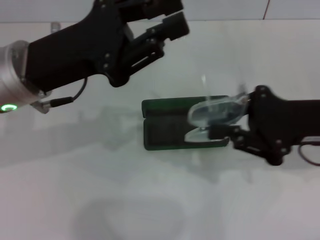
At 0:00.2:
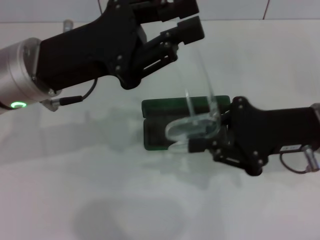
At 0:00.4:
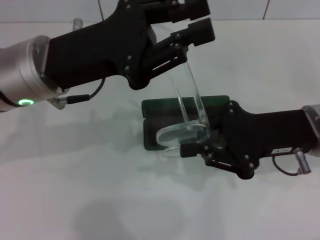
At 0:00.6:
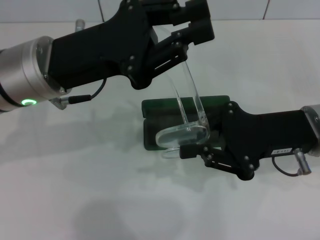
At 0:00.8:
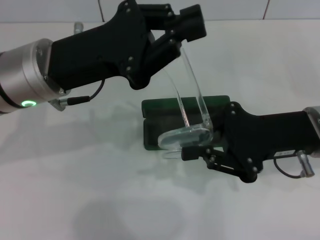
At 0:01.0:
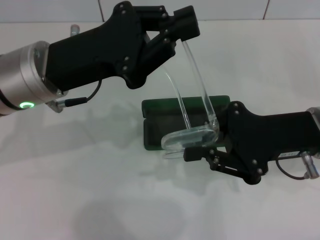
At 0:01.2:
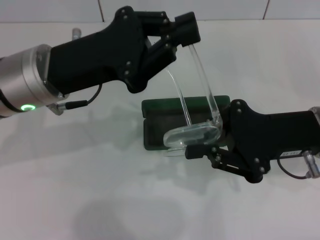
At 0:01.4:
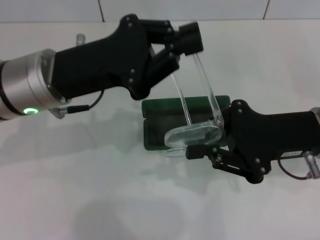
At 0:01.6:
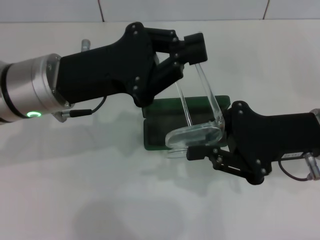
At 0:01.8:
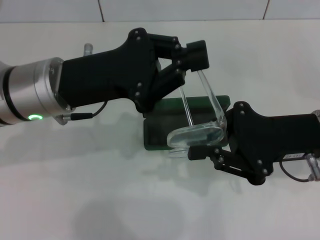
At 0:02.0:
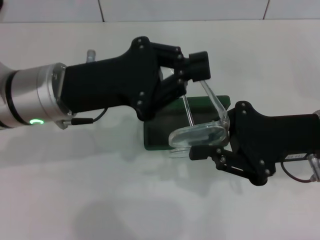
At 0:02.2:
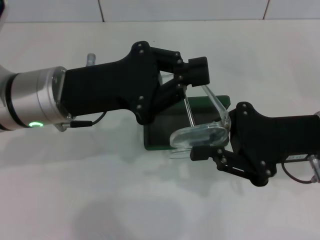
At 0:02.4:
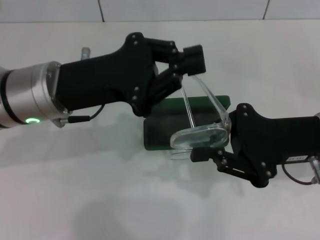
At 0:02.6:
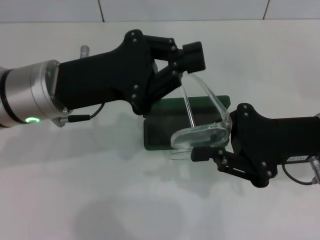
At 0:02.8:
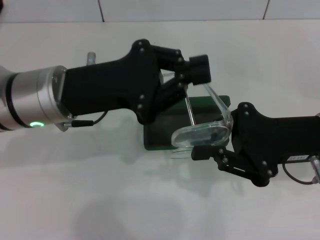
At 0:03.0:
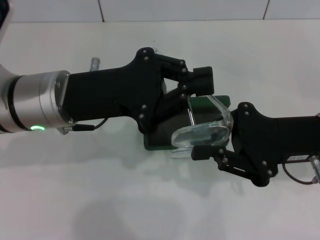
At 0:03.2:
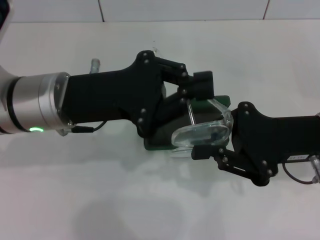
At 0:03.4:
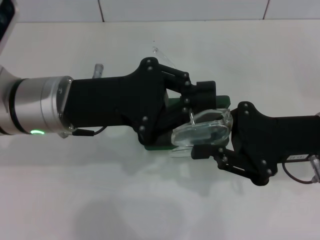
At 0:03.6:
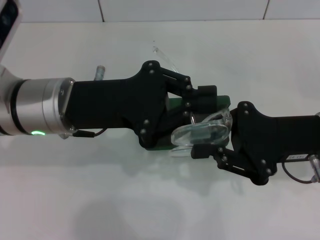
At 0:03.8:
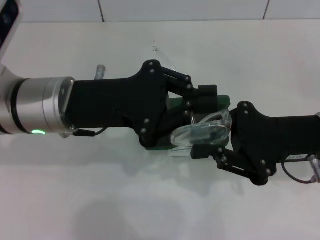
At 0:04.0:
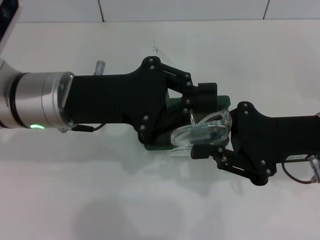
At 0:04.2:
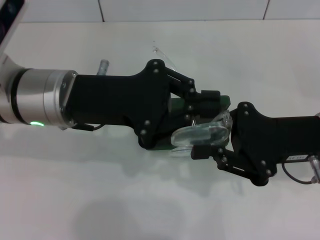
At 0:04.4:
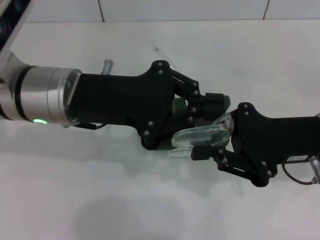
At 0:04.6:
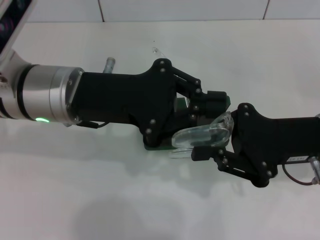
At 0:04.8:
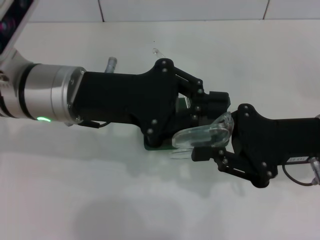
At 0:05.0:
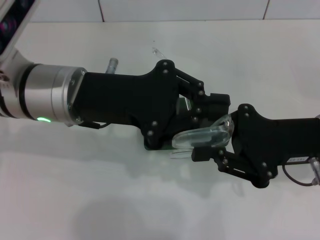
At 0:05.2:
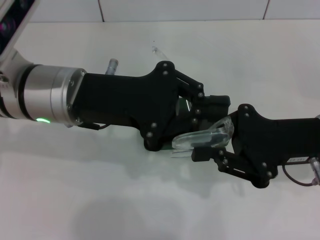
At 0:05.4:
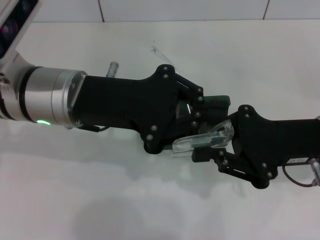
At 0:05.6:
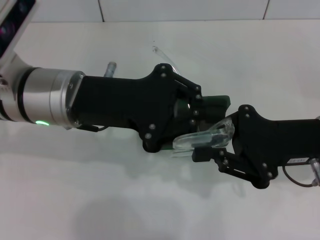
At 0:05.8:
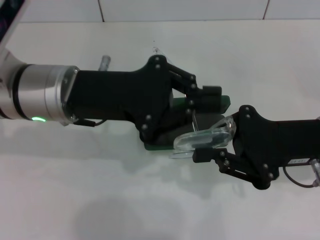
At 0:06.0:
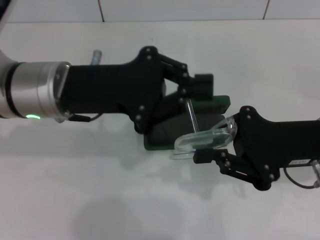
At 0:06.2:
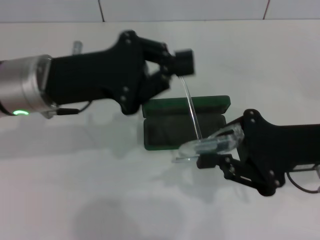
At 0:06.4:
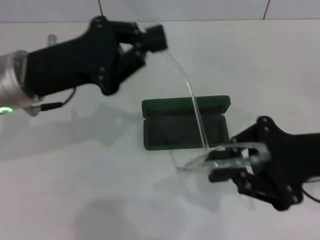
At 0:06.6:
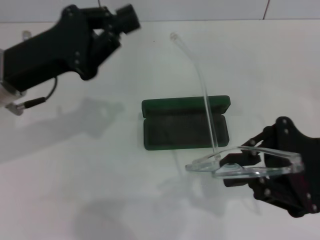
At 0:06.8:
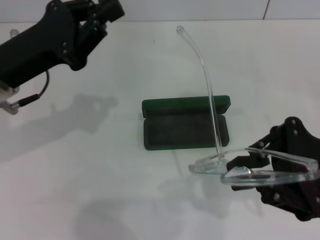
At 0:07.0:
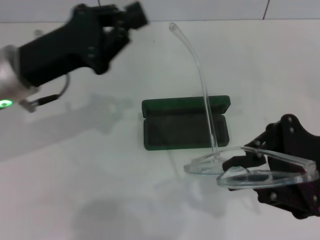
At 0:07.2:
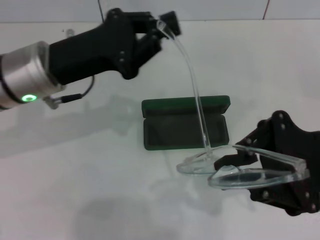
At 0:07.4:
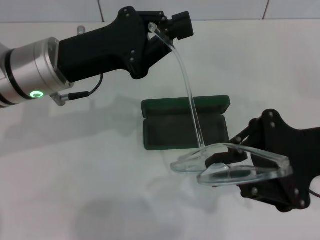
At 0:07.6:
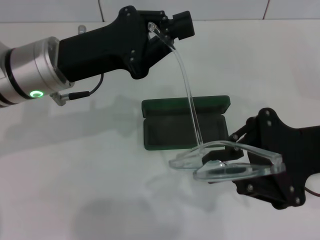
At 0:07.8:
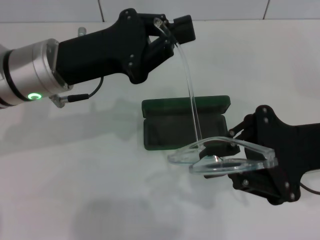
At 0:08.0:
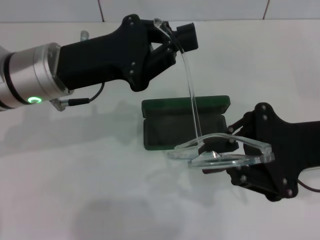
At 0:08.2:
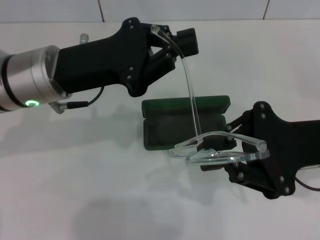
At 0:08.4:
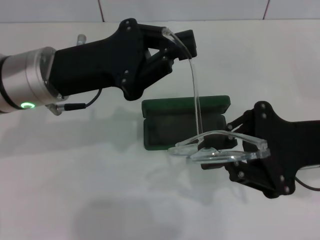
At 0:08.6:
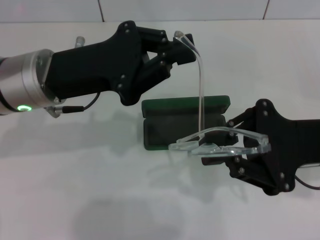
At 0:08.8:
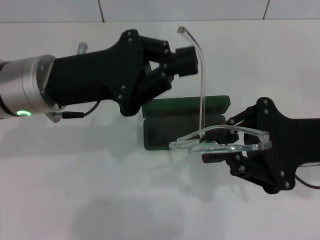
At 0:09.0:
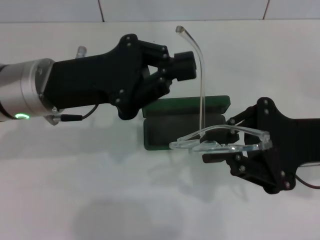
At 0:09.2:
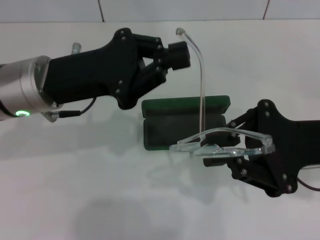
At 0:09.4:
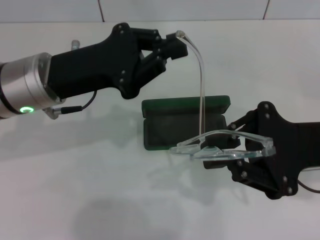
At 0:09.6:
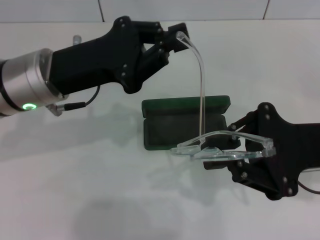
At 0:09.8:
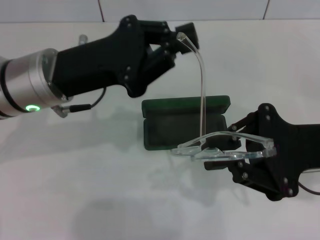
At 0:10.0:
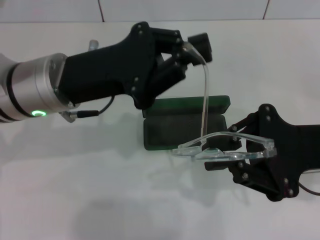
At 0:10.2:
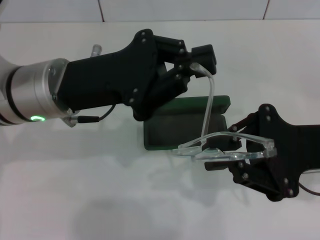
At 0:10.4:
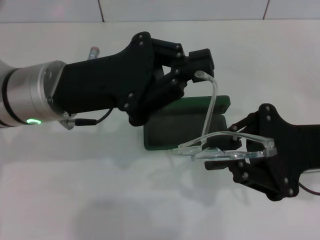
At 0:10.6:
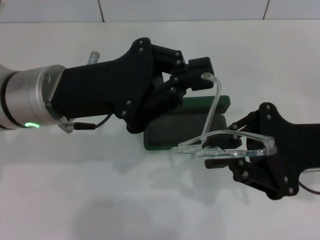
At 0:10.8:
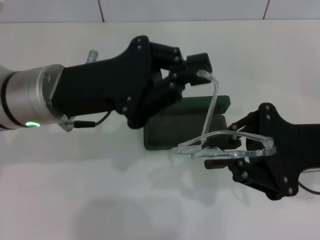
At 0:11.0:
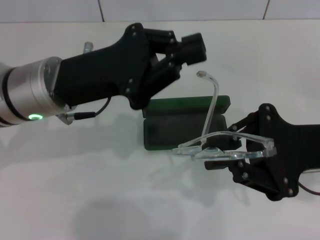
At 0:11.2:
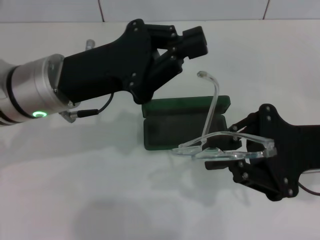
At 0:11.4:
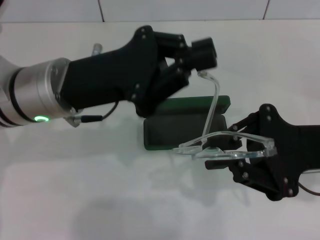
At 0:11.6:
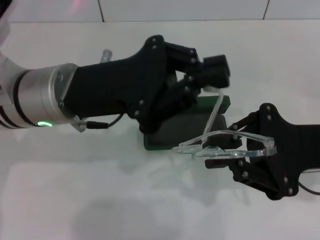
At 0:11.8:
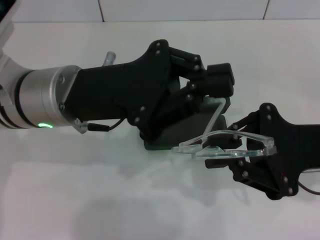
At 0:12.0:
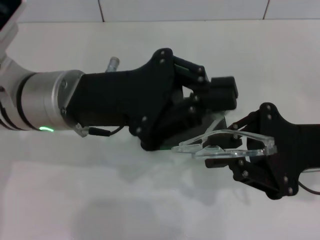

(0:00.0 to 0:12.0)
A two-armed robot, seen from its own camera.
0:03.0 - 0:04.4: The grippers move only a little.
0:04.4 - 0:06.0: Both grippers stay about where they are.
0:09.0 - 0:12.0: There are only small adjustments of the grippers.

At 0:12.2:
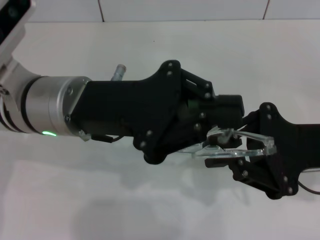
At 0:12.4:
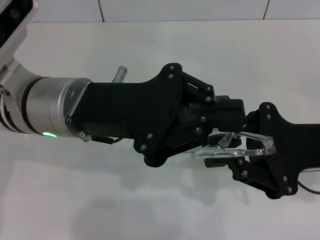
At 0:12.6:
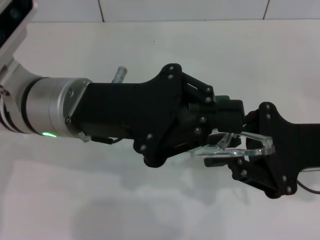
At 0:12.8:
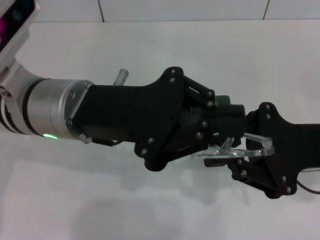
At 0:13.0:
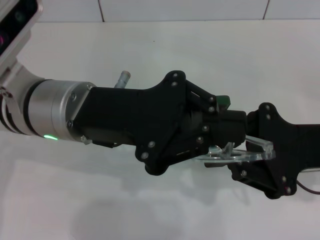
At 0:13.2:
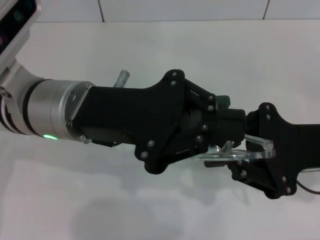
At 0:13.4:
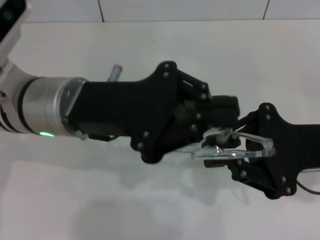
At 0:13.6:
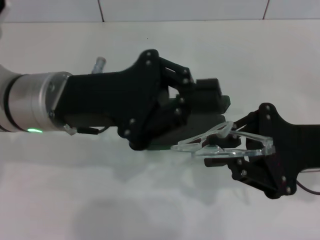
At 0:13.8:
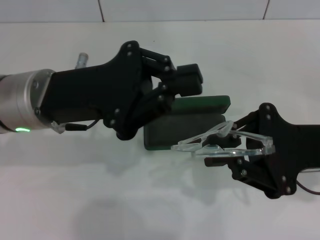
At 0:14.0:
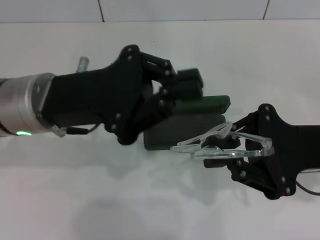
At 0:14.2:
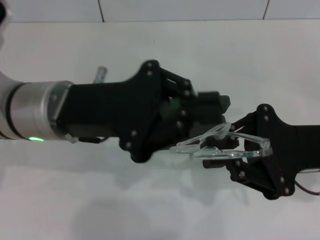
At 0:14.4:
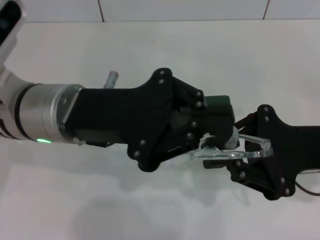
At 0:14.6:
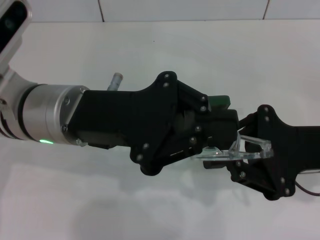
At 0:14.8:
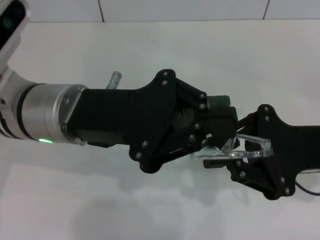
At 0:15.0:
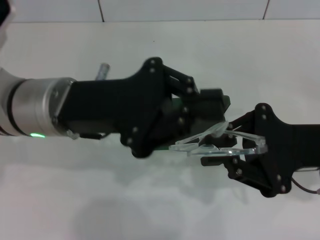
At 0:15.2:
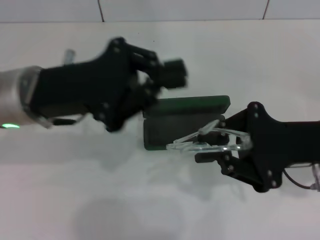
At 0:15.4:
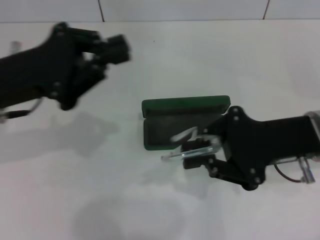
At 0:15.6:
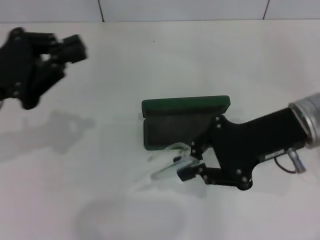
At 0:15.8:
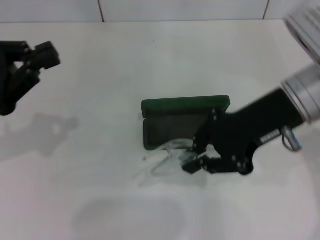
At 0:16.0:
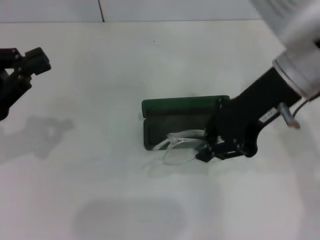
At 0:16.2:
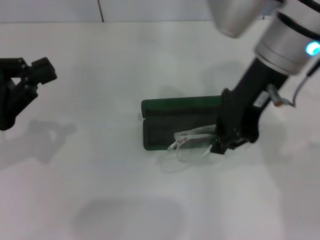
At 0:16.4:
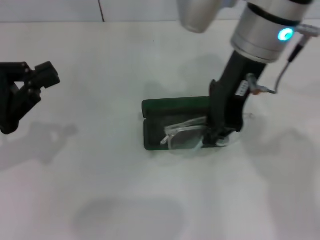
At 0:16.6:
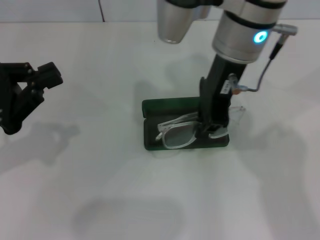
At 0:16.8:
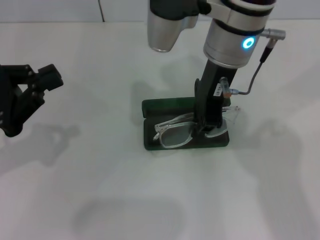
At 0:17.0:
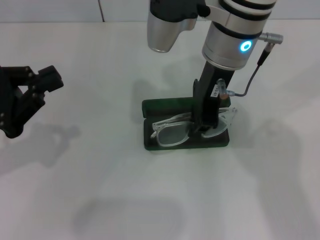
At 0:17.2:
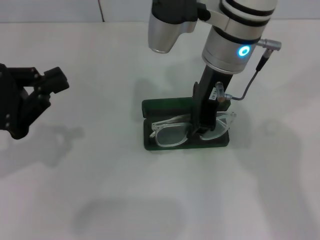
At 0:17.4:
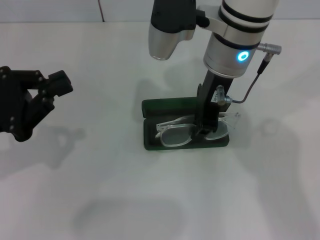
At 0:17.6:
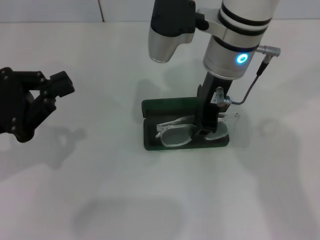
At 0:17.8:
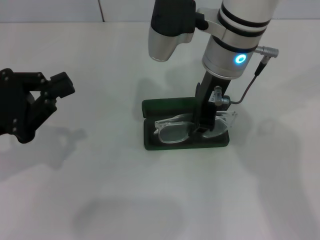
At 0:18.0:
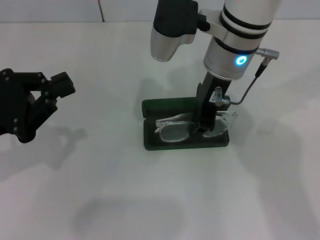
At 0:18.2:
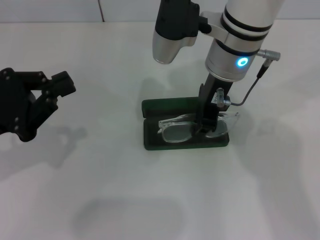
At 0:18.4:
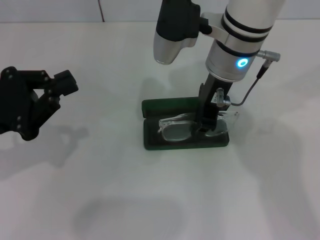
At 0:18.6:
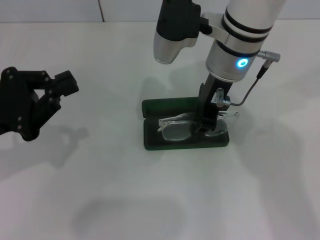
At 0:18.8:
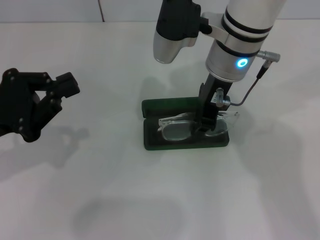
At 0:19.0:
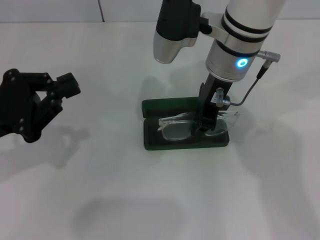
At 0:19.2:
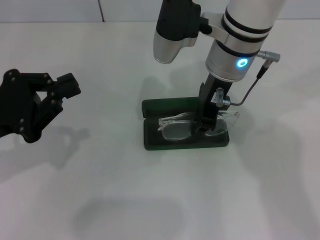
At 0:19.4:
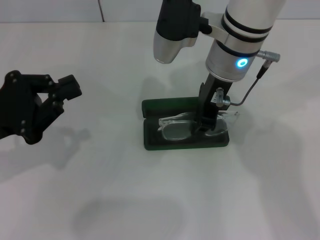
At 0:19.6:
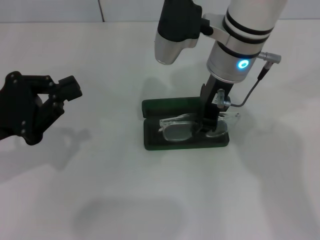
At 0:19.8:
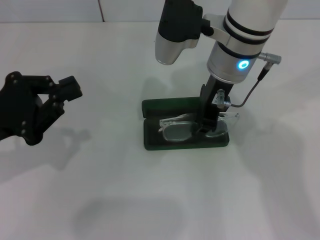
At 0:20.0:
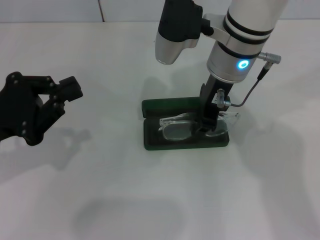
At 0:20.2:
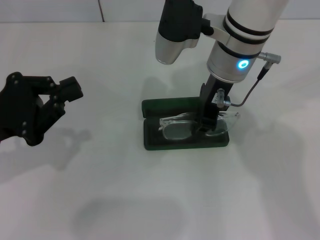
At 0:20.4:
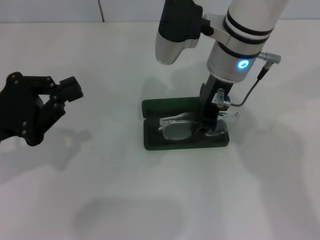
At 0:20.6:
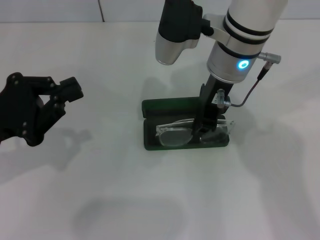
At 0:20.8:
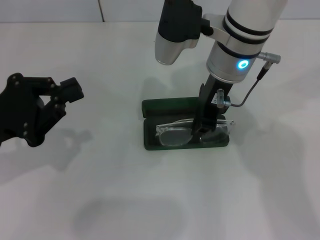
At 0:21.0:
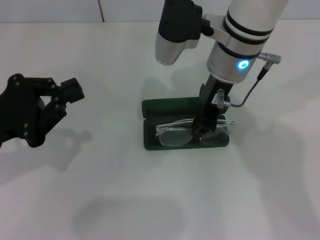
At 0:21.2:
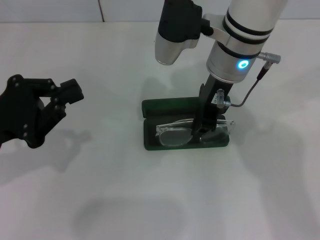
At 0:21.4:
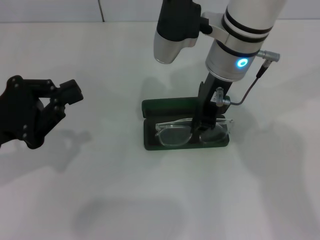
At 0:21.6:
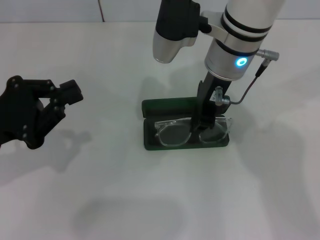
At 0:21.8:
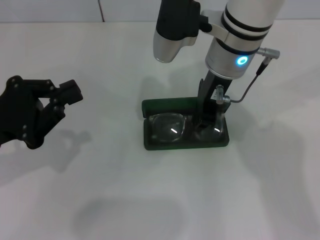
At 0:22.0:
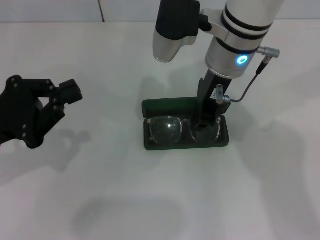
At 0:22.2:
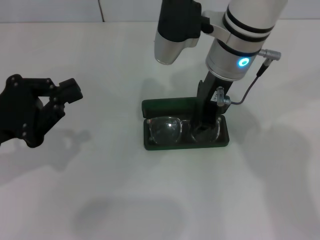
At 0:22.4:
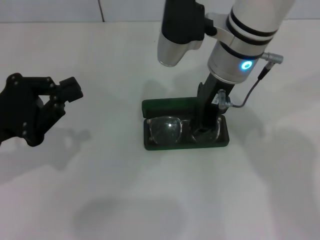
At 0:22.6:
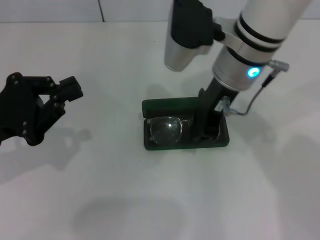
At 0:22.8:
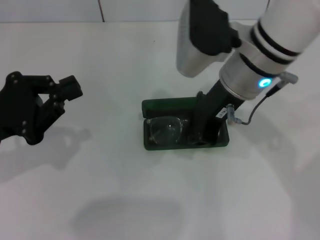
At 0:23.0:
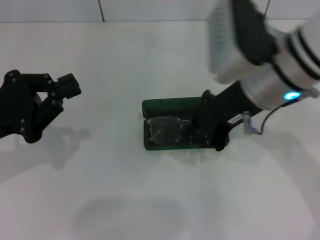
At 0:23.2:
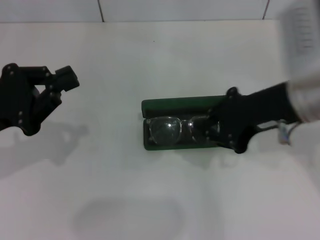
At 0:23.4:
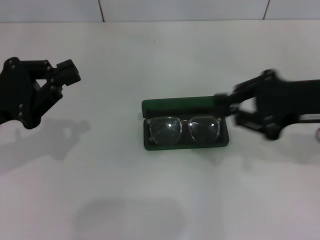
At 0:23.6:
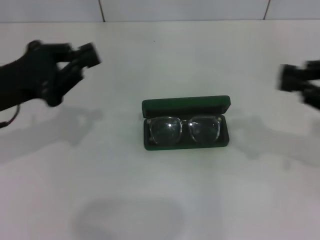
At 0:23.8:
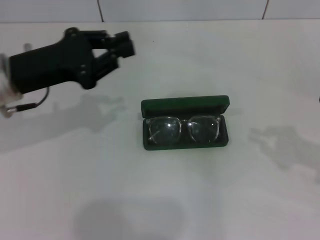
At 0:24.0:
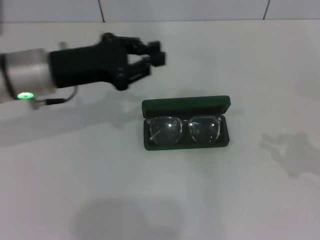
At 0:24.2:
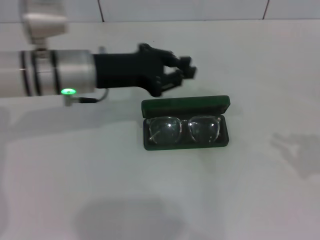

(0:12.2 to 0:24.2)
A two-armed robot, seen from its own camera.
Step, 0:13.8 - 0:22.2: Put the glasses into the case with your right hand.
0:12.2 - 0:15.2: There are only small adjustments of the grippers.
0:15.2 - 0:16.6: The left gripper is displaced to the left by roughly 15 cm. The right gripper travels to the left, upward and forward by about 20 cm.
0:16.6 - 0:18.2: The right gripper goes about 5 cm downward.
0:18.2 - 0:21.2: Both grippers stay about where they are.
0:21.2 - 0:22.6: The grippers move only a little.
0:22.6 - 0:24.2: The left gripper shifts some 20 cm to the right and forward. Meanwhile the right gripper heads to the right and backward, covering approximately 35 cm.
